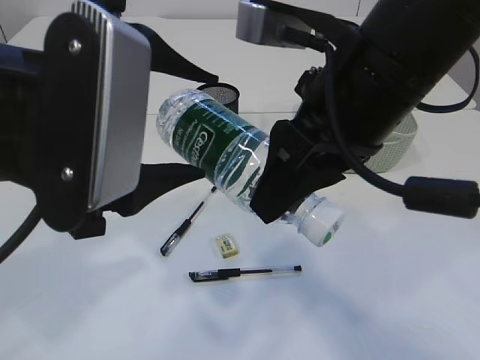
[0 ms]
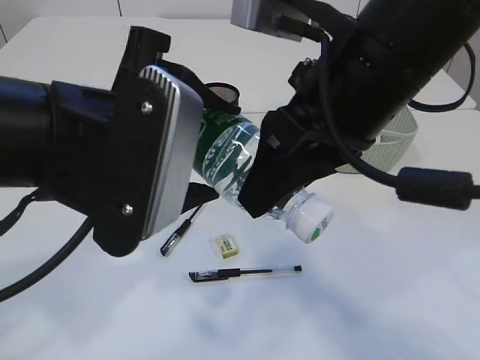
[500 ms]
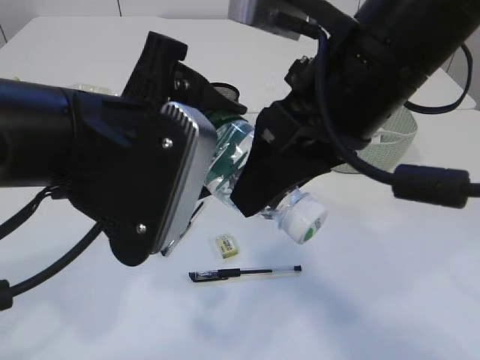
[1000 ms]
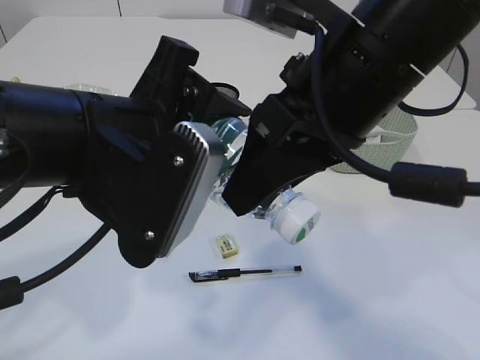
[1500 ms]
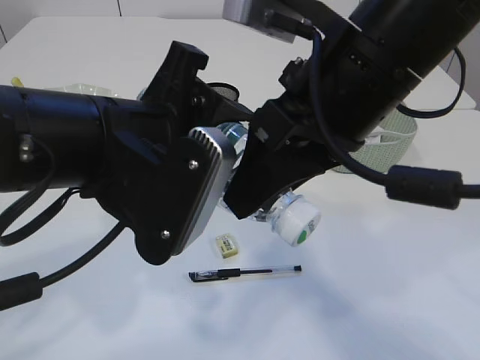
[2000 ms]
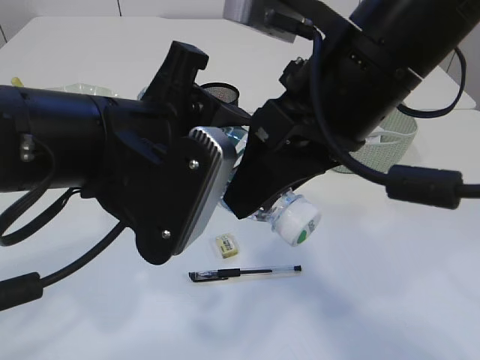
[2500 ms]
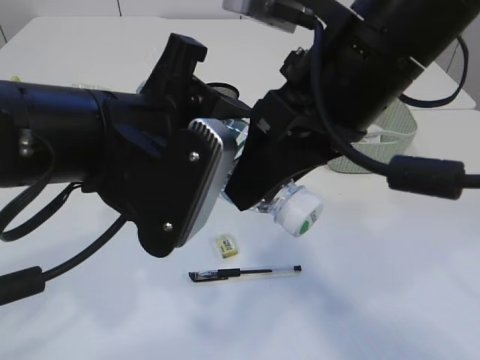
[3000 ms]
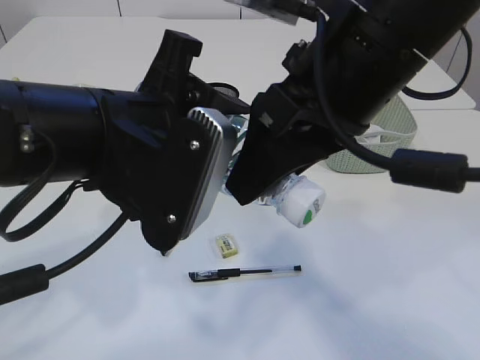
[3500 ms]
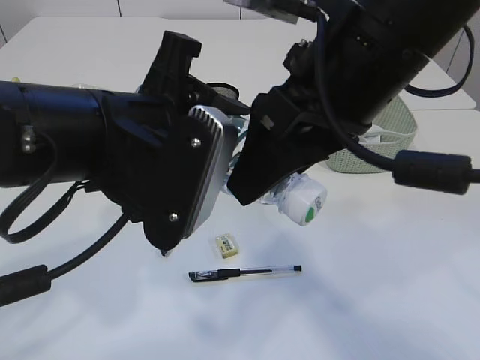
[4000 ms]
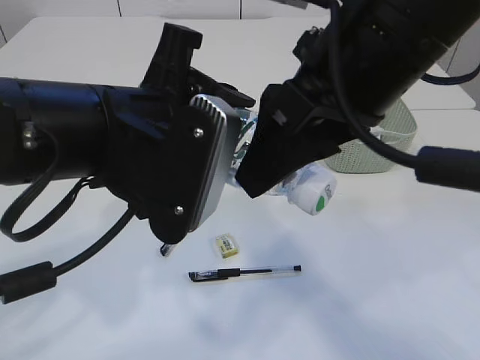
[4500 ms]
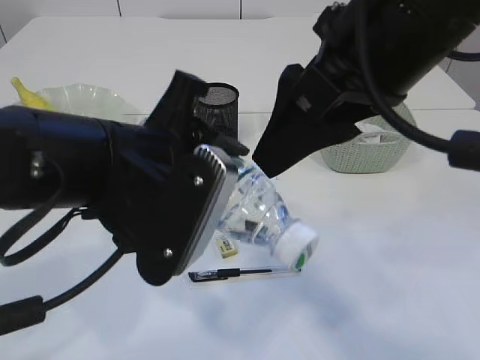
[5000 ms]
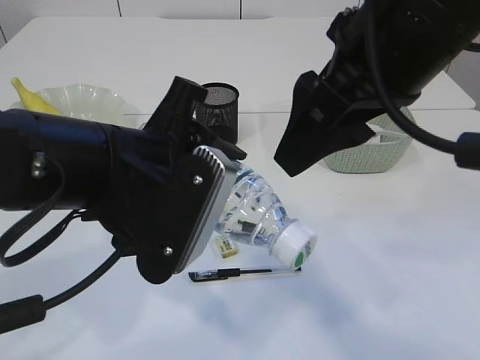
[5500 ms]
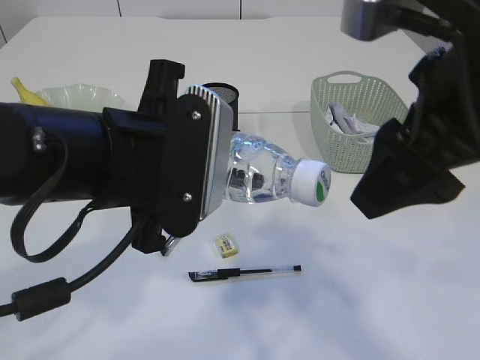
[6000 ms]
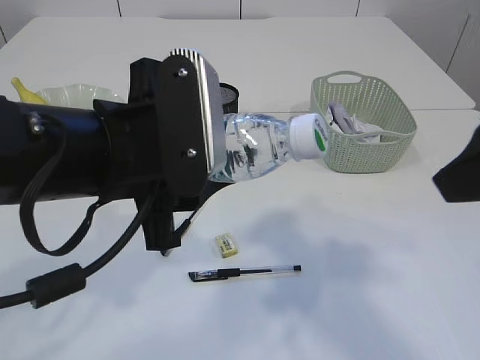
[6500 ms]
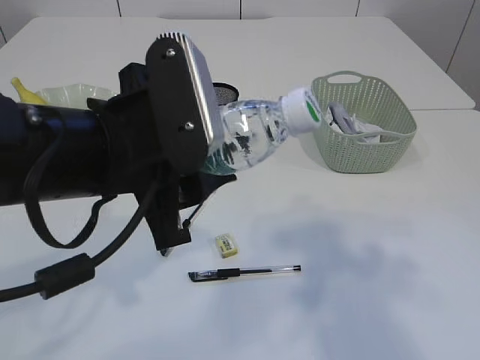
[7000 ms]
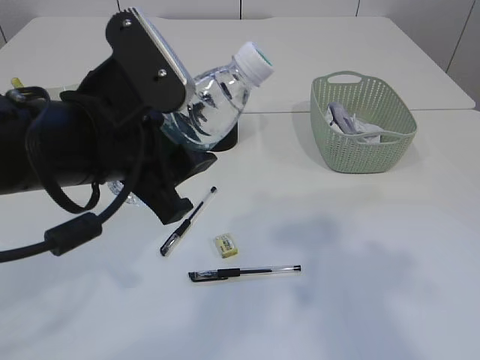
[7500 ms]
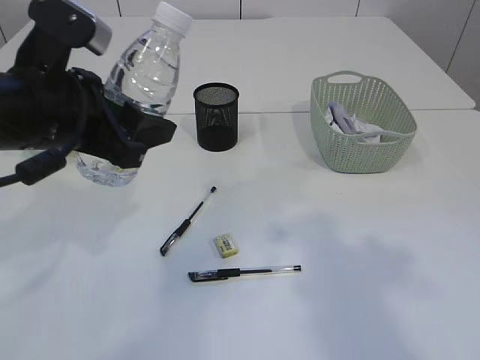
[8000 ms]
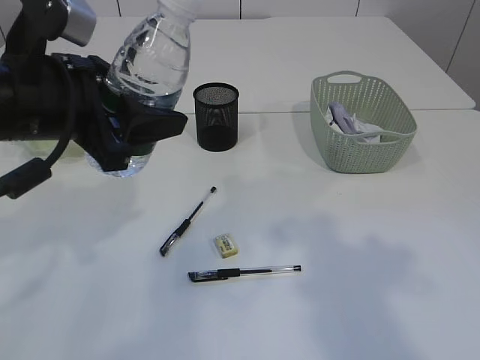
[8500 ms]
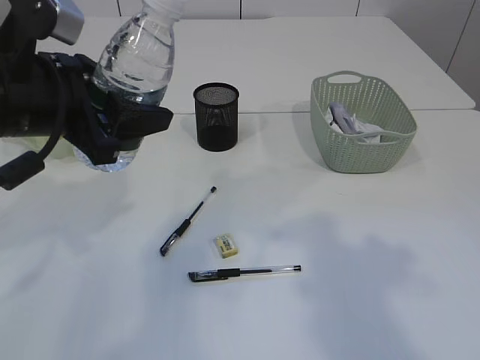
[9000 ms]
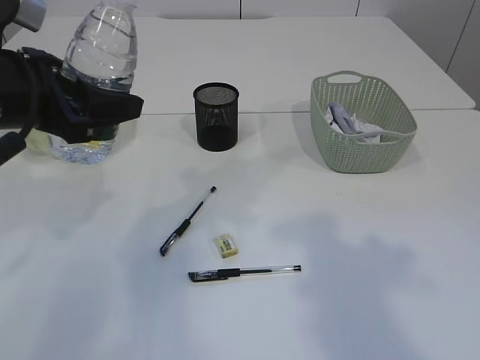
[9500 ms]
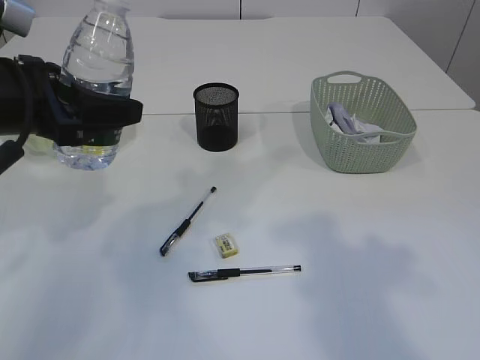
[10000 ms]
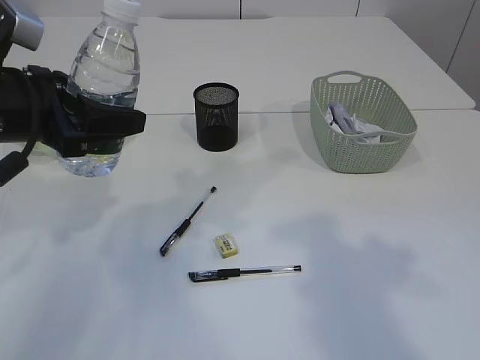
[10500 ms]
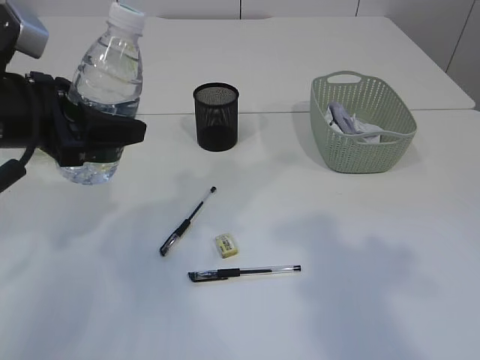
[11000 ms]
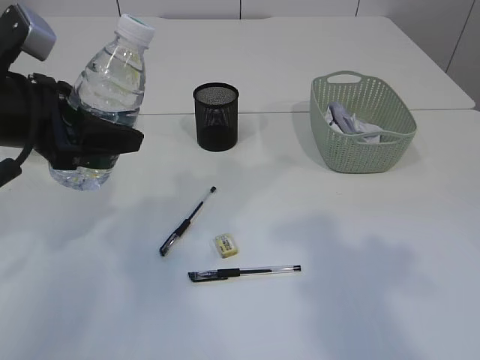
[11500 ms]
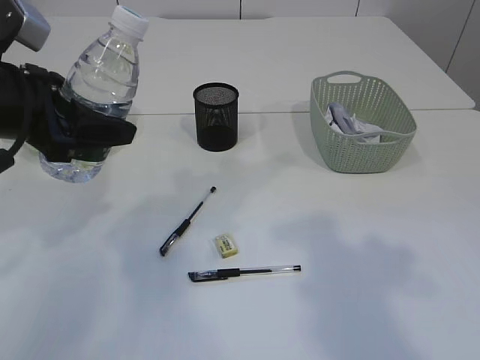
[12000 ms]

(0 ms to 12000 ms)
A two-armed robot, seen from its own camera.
Step, 0 ms - 5500 ms: transfer the bottle to the left arm.
0 ms - 2000 ms: The left gripper changes place by roughly 5 cm.
2000 ms - 4000 ms: Neither gripper changes place.
4000 ms - 6000 ms: The right gripper goes about 5 cm to the right.
6000 ms - 8000 ms: The left gripper travels to the left and forward by some 10 cm. Meanwhile the right gripper heads to the right and backward, covering some 10 cm.
8000 ms - 10000 ms: The left gripper shifts roughly 5 cm to the left.
10000 ms - 12000 ms: The grippers make only small movements.

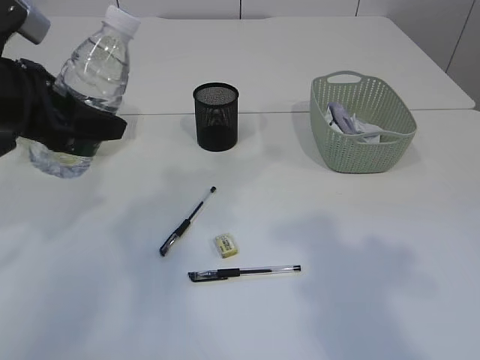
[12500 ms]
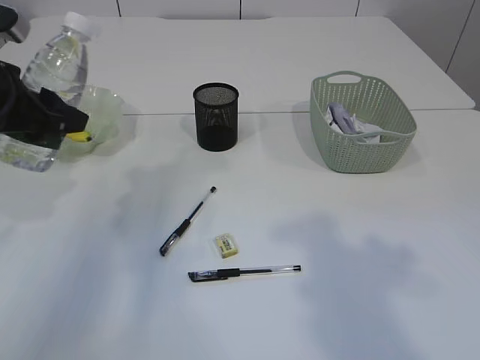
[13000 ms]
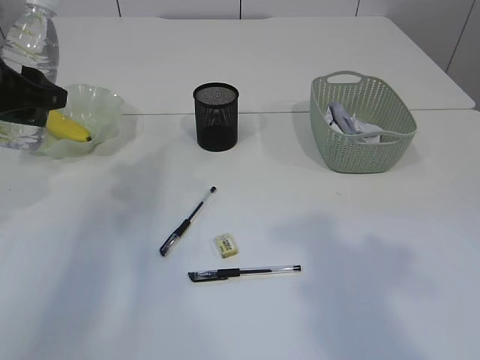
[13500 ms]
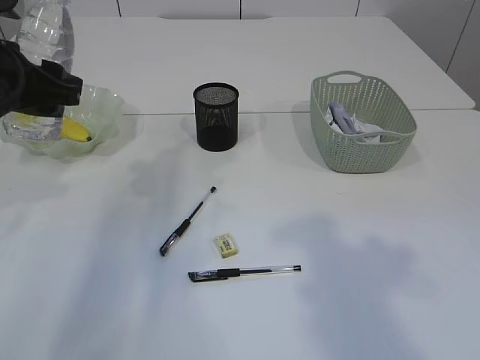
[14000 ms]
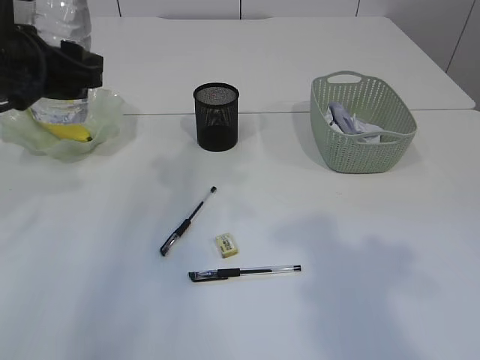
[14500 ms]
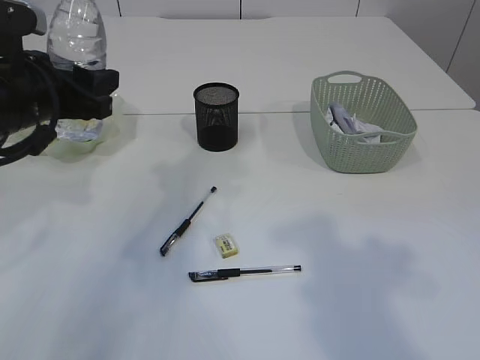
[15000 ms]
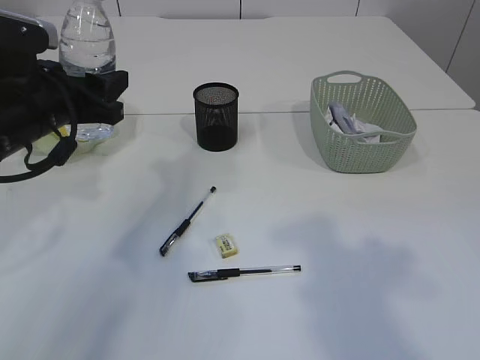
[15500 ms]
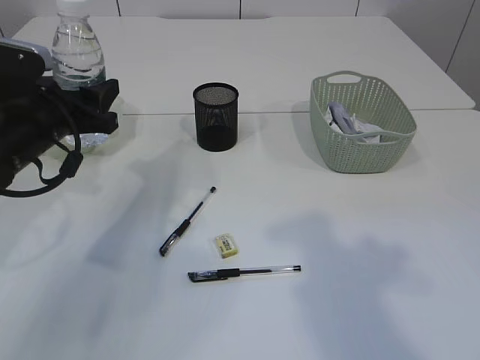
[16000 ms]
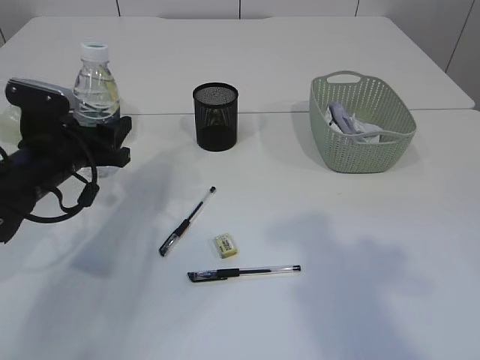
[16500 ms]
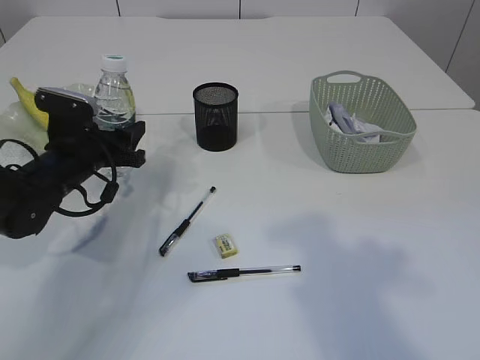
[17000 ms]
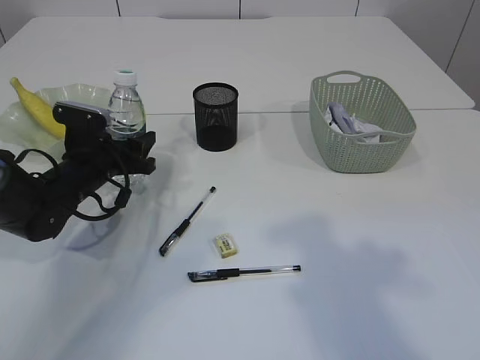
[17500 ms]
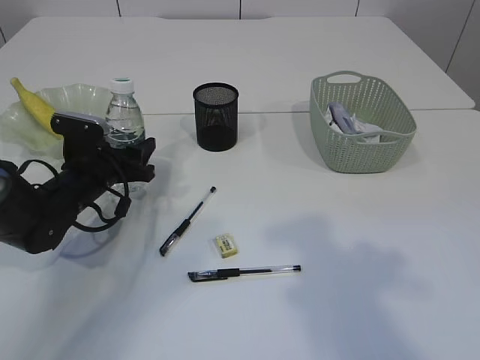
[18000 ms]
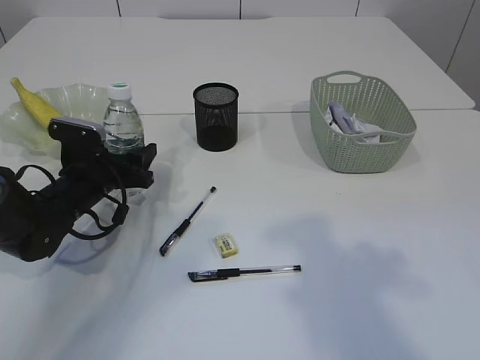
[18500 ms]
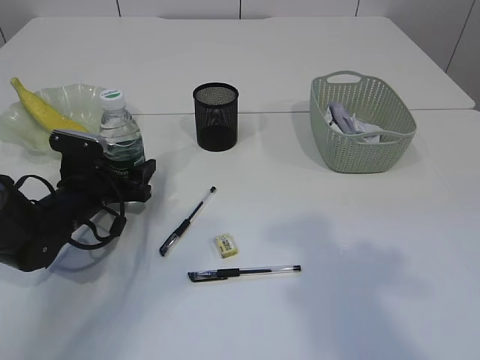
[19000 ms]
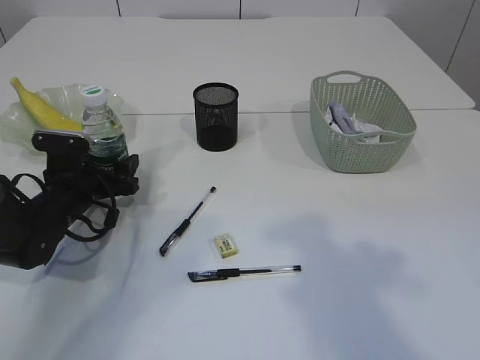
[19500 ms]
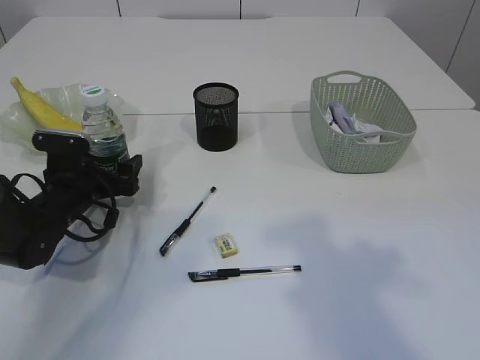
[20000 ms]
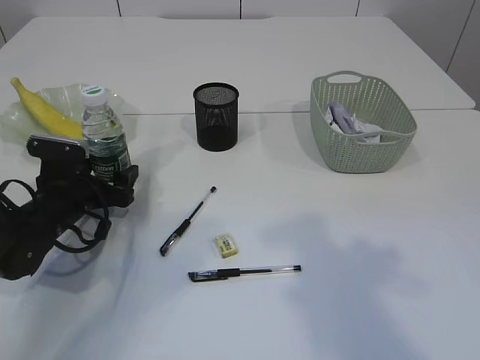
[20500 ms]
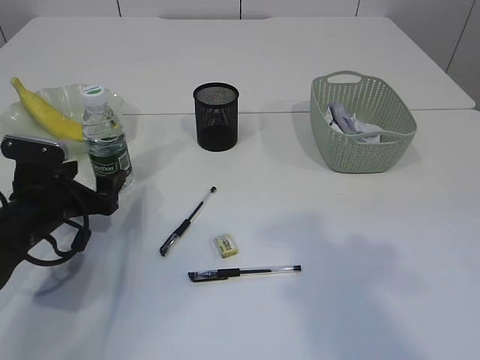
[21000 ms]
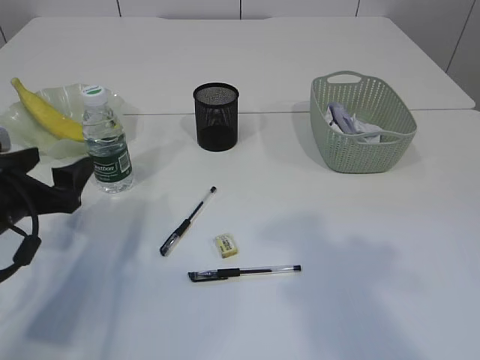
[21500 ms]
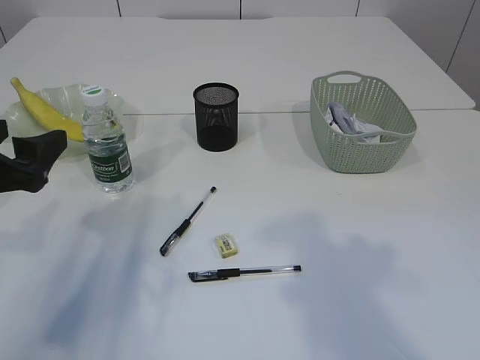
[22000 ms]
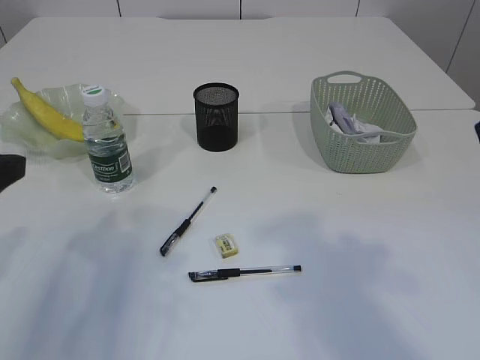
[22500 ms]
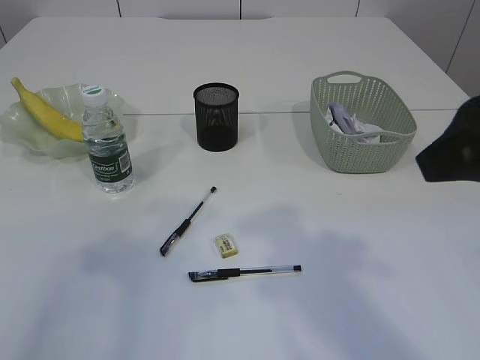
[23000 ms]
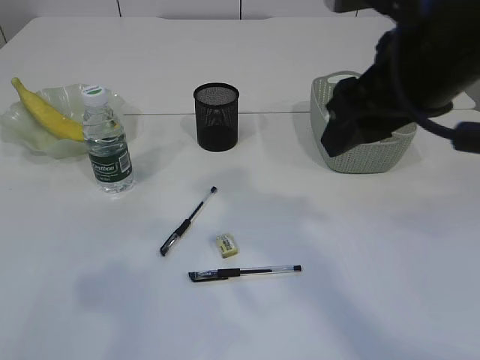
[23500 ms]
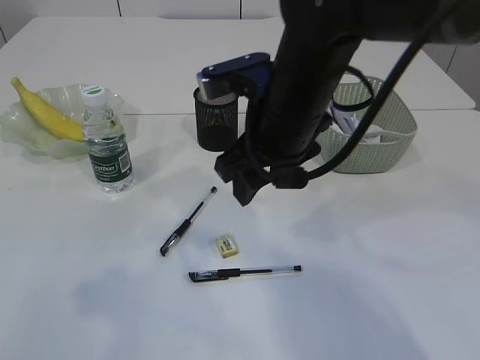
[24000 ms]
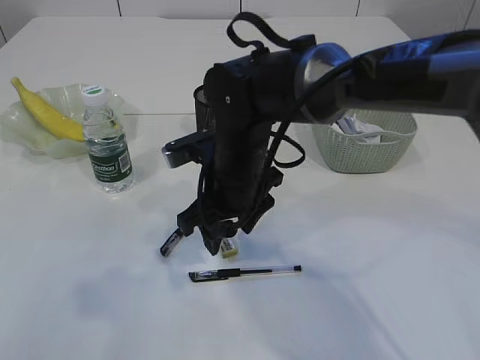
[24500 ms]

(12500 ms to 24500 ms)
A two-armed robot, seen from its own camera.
Step, 12500 ms - 20500 ms: Place the bottle.
14500 ms - 16500 ms: The left gripper is displaced downward by roughly 15 cm.
16500 ms - 18500 ms: The left gripper is displaced downward by some 10 cm.
18500 ms - 20500 ms: The left gripper opens up.
20500 ms - 22500 ms: The left gripper moves upward and backward, some 25 cm.
22500 ms - 24500 ms: The left gripper heads upward and backward, covering approximately 10 cm. Meanwhile the right gripper heads to the left, downward and forward, covering about 35 cm.

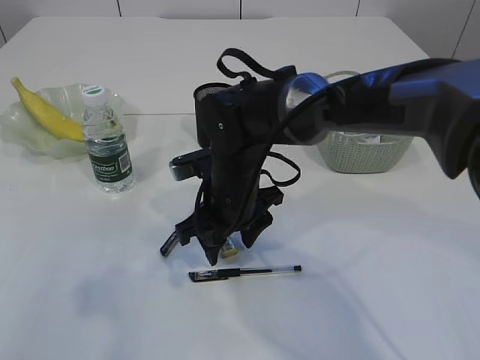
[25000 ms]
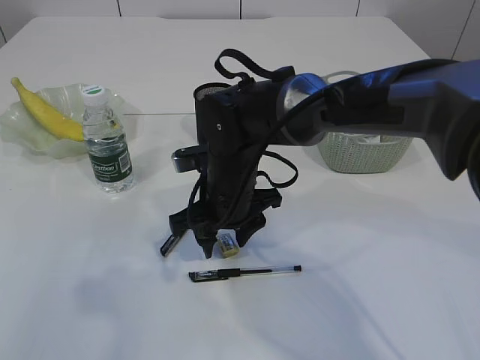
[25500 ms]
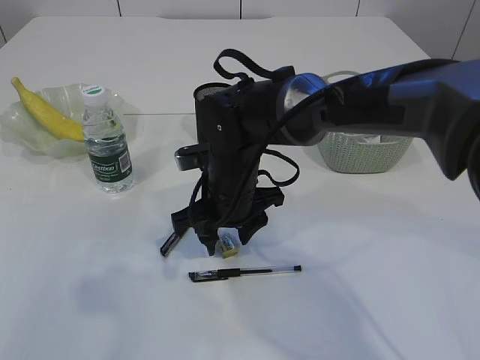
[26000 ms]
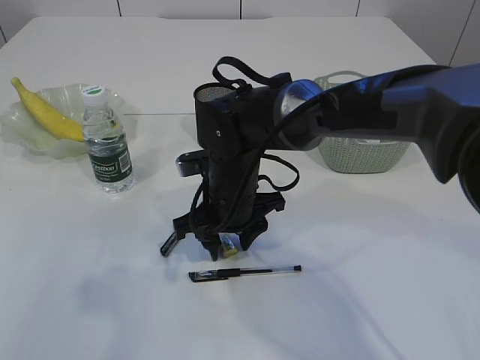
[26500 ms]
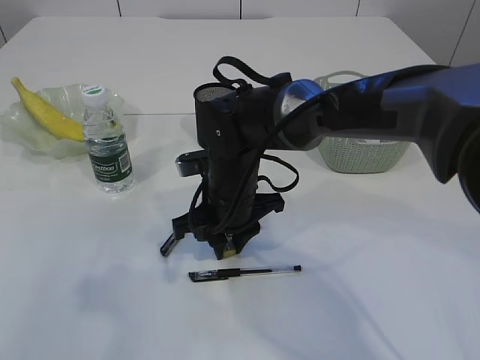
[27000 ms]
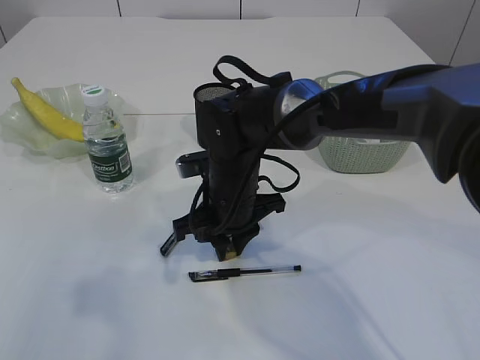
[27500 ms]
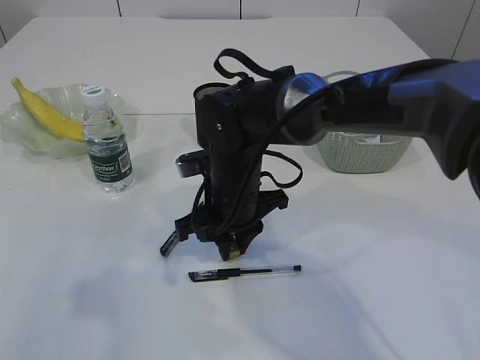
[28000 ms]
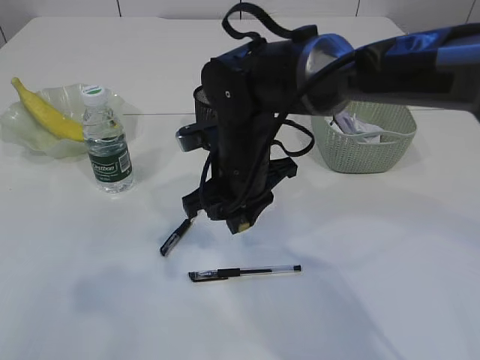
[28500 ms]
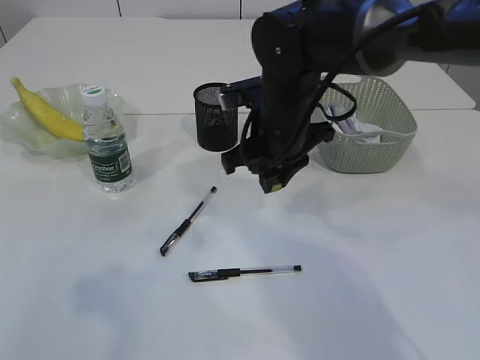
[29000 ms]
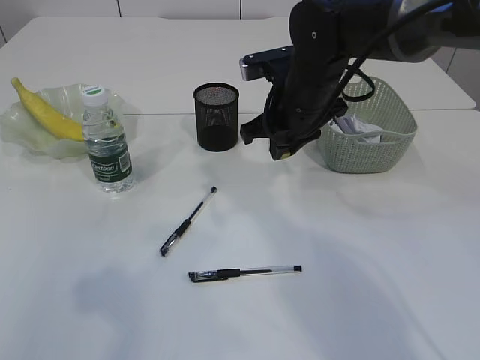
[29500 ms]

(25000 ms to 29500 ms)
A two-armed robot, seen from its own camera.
Step, 25000 ms - 28500 ms: Pick up the eraser.
25000 ms - 27000 ms: The right gripper closes its fingers.
27000 ms - 29500 ms: The right gripper shifts about 15 cm to the right, upward and forward.
